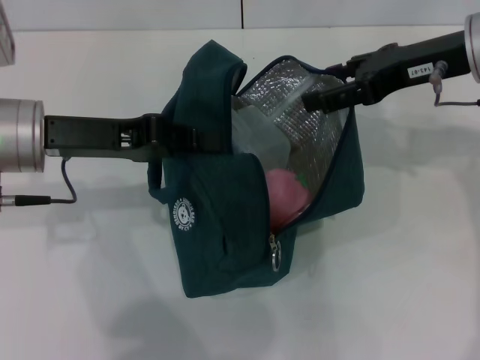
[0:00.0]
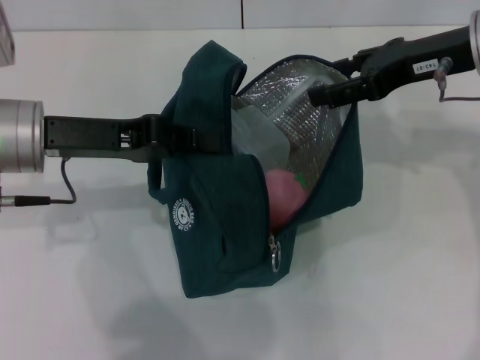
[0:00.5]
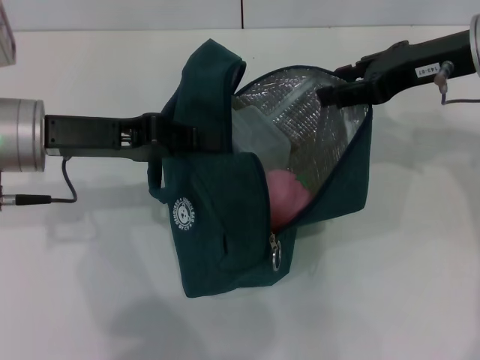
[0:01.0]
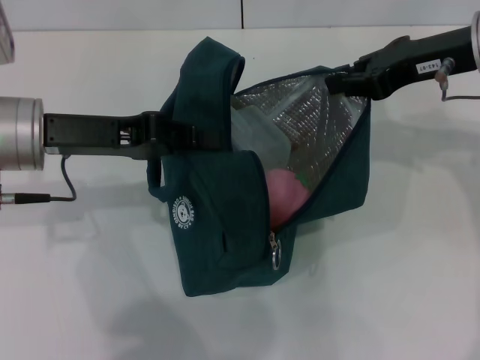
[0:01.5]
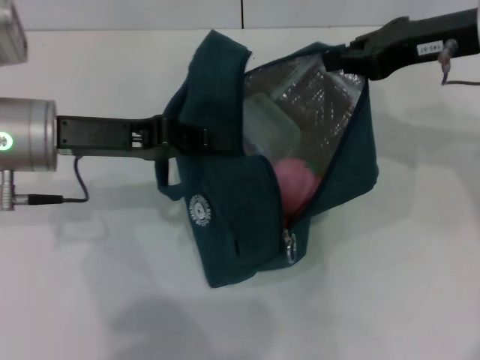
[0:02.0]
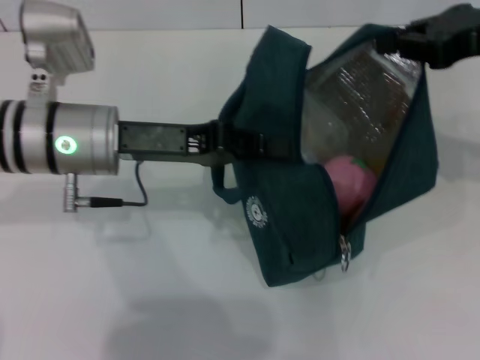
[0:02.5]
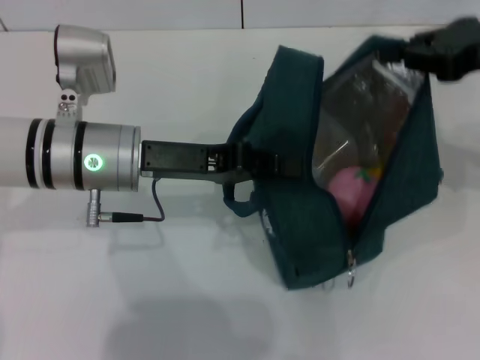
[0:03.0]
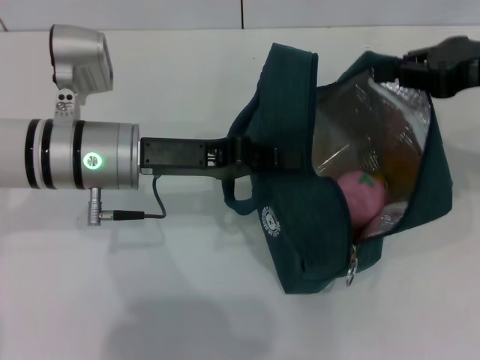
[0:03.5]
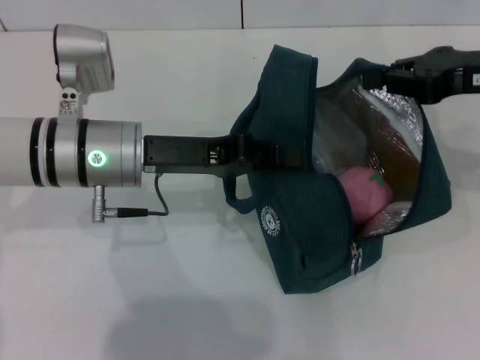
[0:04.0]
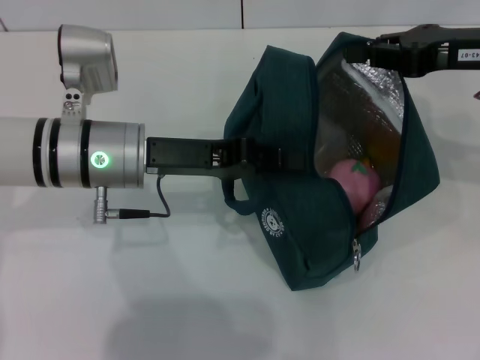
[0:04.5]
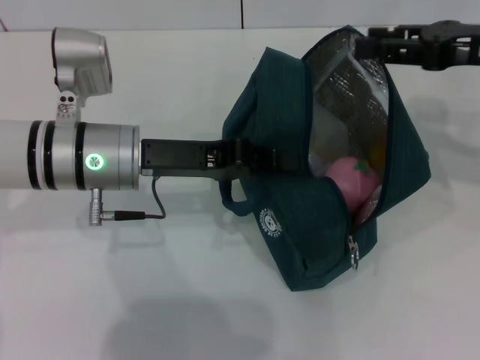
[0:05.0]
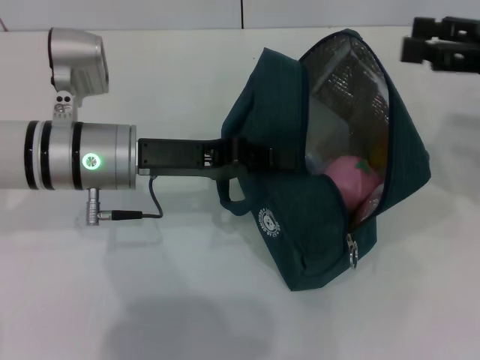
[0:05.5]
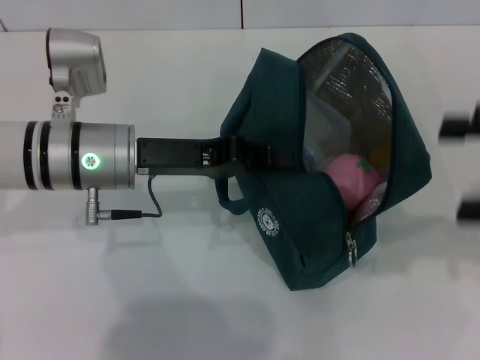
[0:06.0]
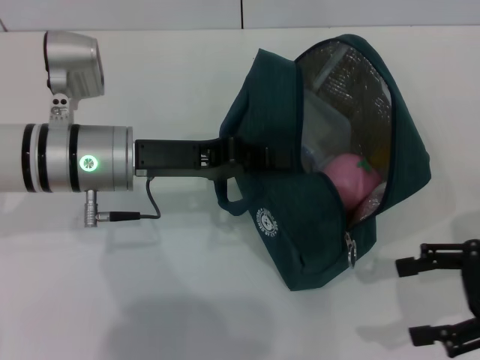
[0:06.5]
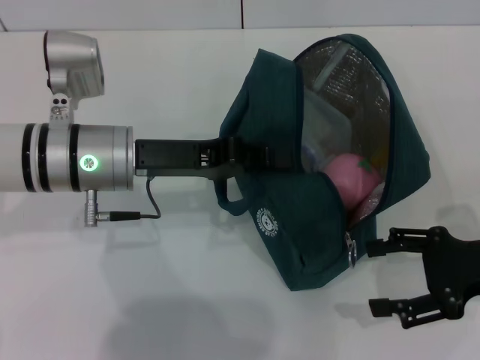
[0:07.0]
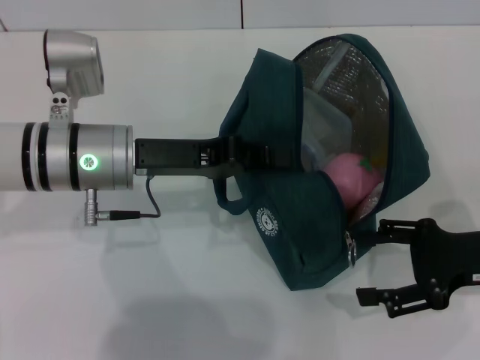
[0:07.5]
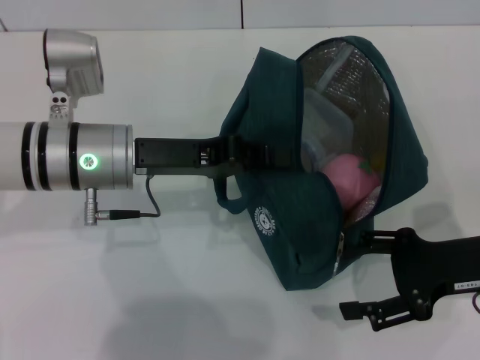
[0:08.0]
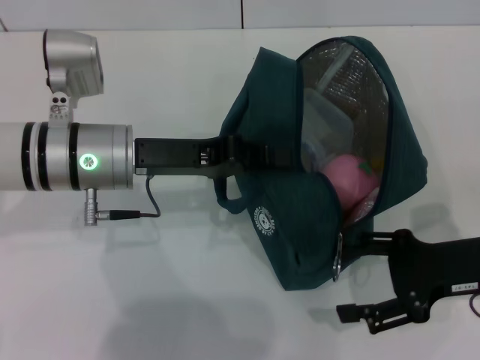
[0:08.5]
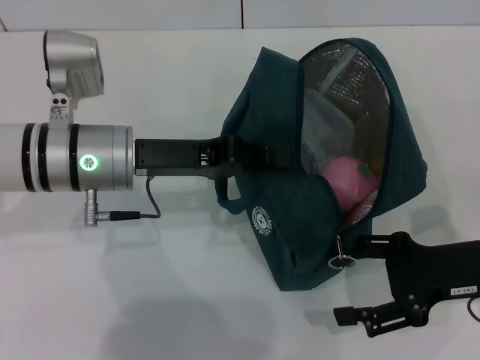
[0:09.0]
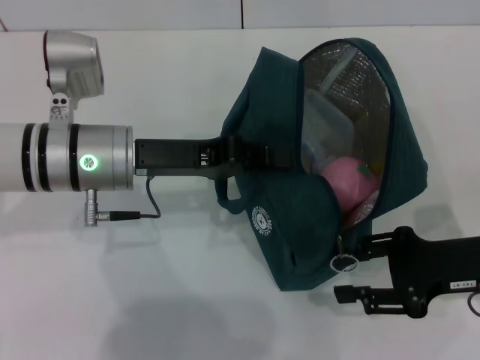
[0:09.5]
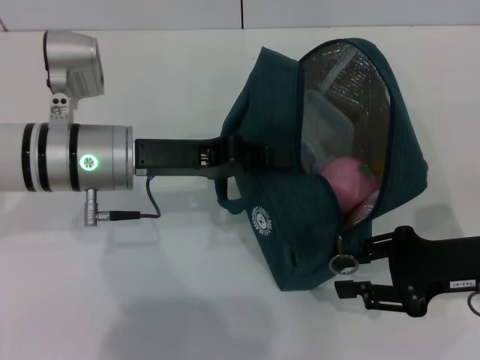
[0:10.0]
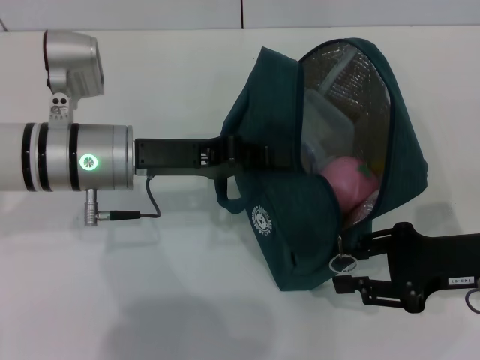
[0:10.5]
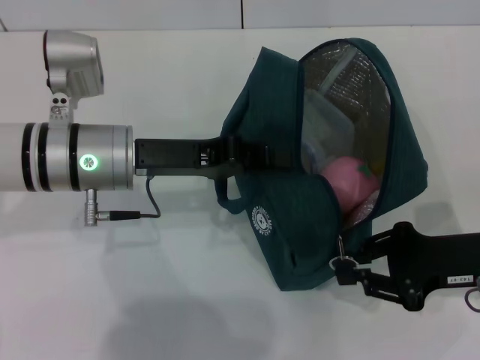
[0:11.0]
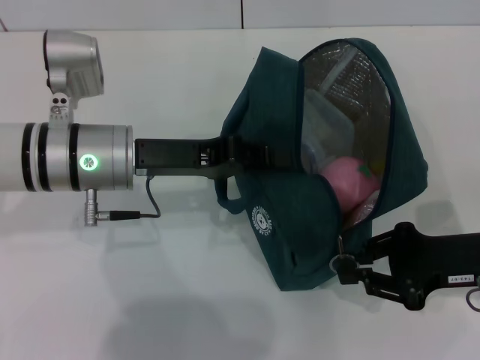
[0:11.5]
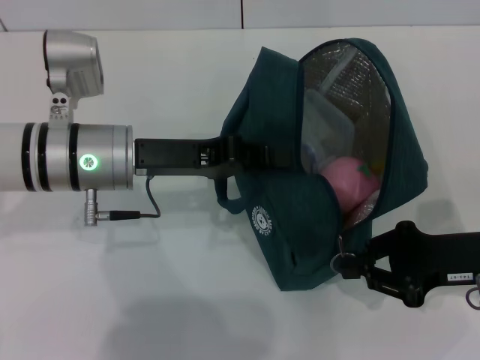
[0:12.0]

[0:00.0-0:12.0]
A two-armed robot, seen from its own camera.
Step, 0:00.0 to 0:05.0: Hold the lunch bag with your right hand.
0:00.0 to 0:02.0: The right gripper closes its fingers.
0:02.0 to 0:04.0: The right gripper moves some 5 cm; the left gripper goes approximately 5 cm to the right.
0:04.0 to 0:06.0: The right gripper goes roughly 10 cm backward and to the right, and opens.
0:06.0 to 0:08.0: The right gripper shifts about 15 cm downward and to the left.
0:08.0 to 0:10.0: The right gripper closes up.
0:10.0 to 0:12.0: Both grippers stay about where they are.

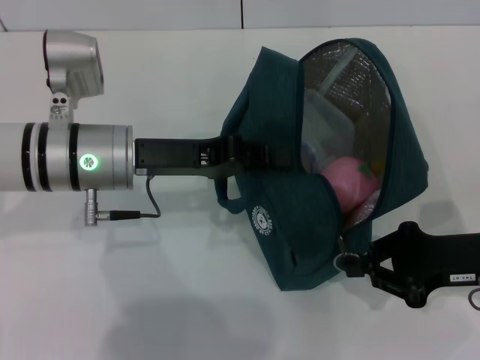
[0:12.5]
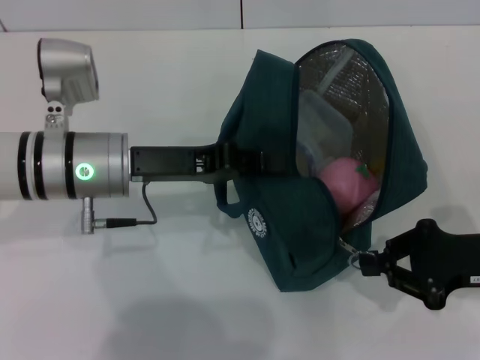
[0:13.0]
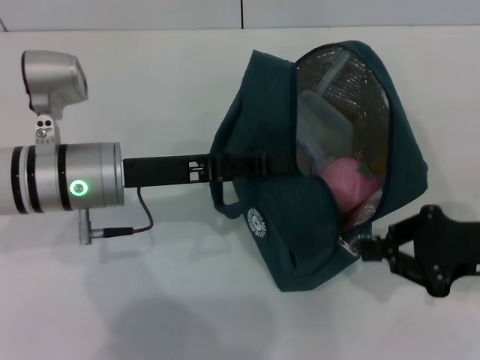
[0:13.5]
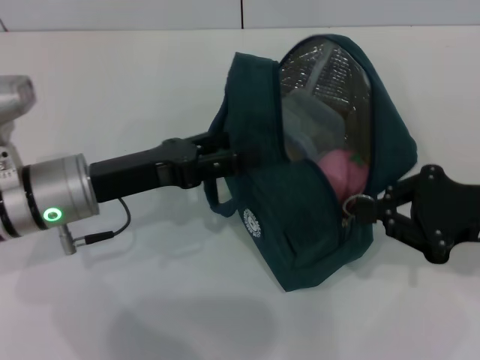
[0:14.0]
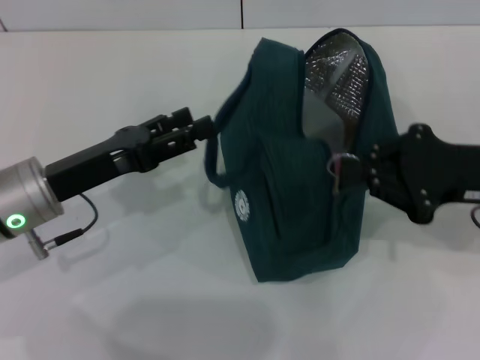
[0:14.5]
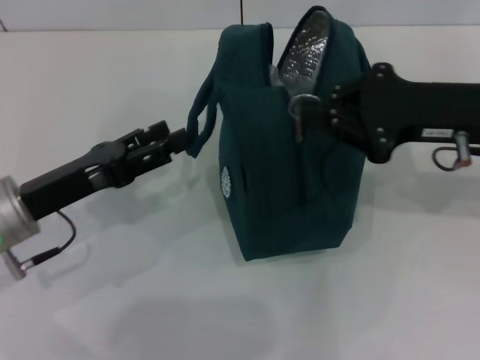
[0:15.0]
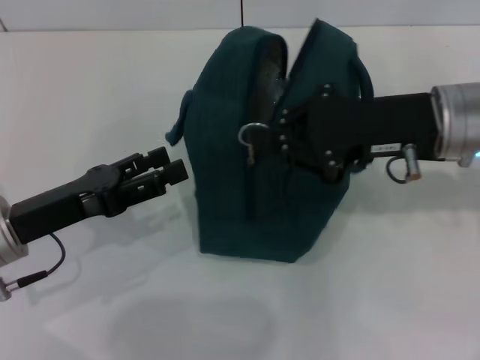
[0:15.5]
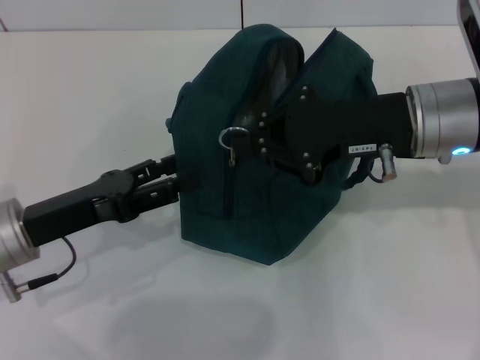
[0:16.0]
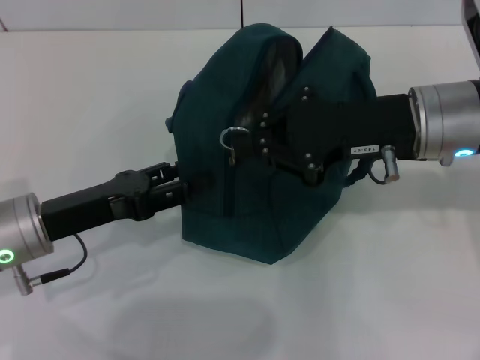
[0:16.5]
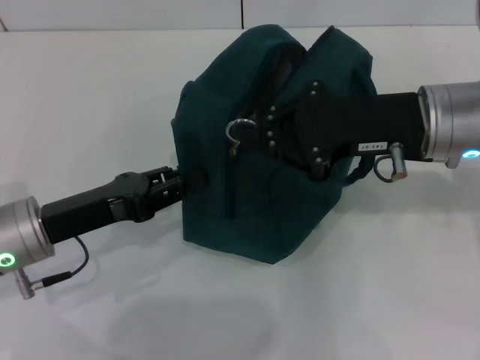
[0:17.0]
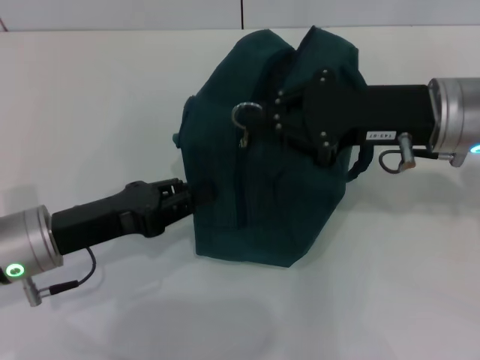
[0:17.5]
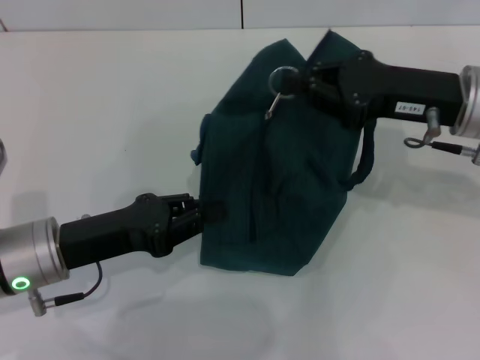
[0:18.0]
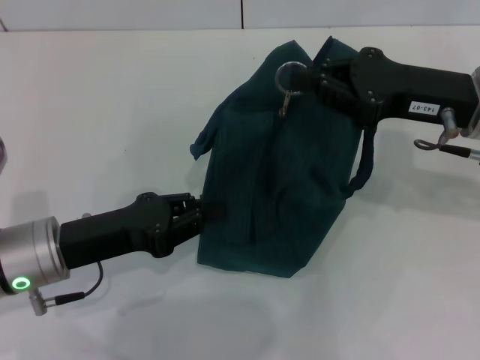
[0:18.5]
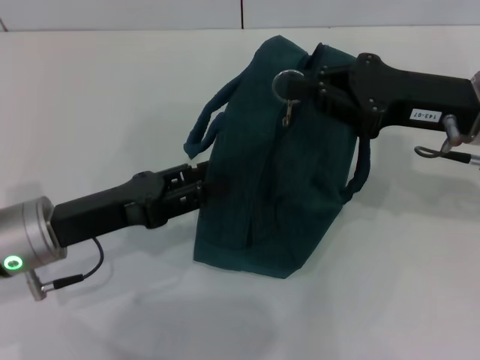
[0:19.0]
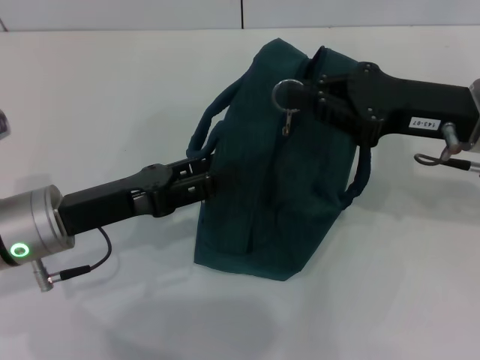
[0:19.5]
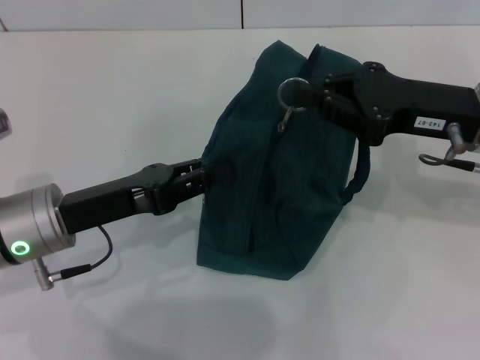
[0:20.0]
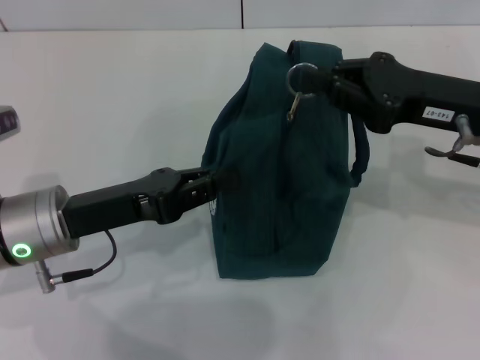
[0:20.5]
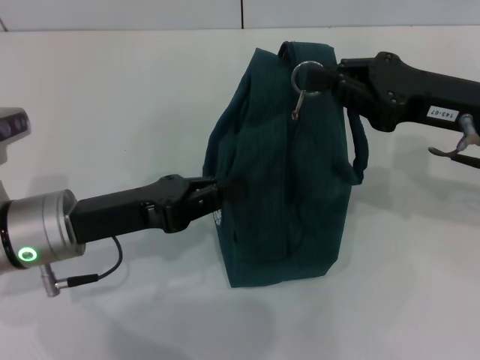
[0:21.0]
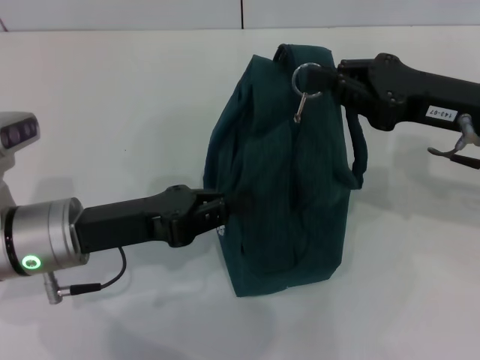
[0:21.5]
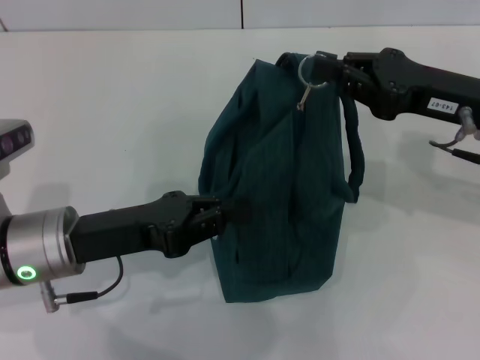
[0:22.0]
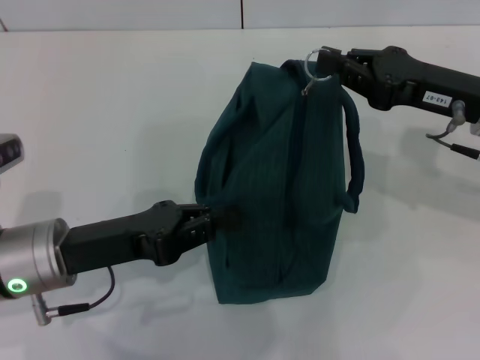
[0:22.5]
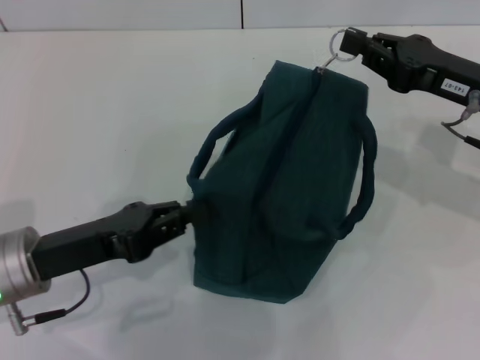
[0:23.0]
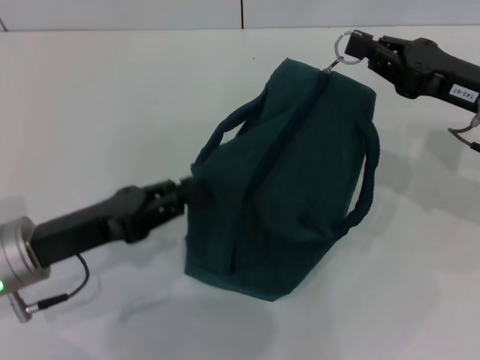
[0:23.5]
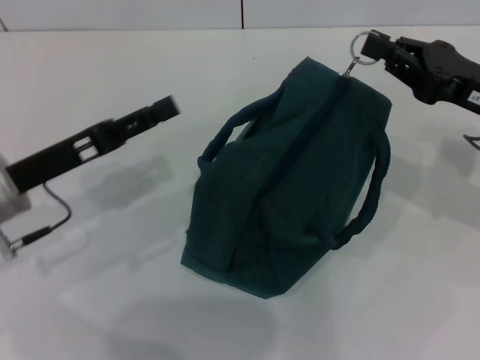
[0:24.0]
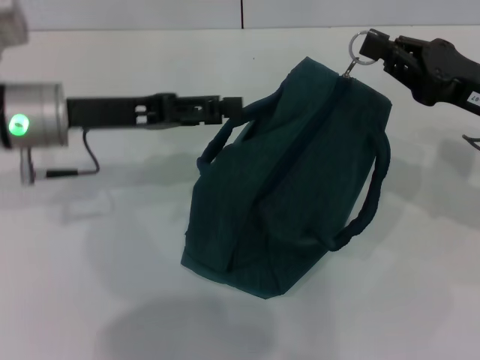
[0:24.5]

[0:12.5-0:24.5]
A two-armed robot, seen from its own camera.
0:12.5 to 0:14.5: The right gripper is displaced upward by some 5 cm, while the left gripper is displaced to the left by roughly 5 cm, and opens up.
0:14.5 to 0:16.5: The right gripper travels to the left by roughly 10 cm.
0:16.5 to 0:18.5: The left gripper closes up.
0:18.5 to 0:20.5: The left gripper opens, then closes once more.
0:22.5 to 0:24.5: The left gripper shifts roughly 15 cm forward and upward, and opens up.

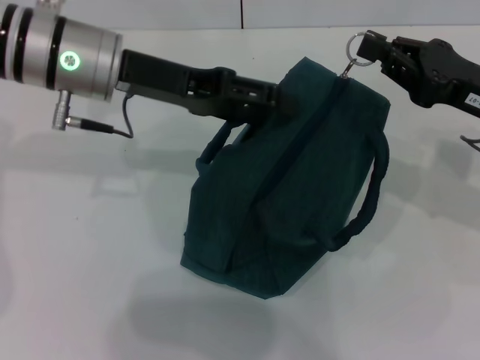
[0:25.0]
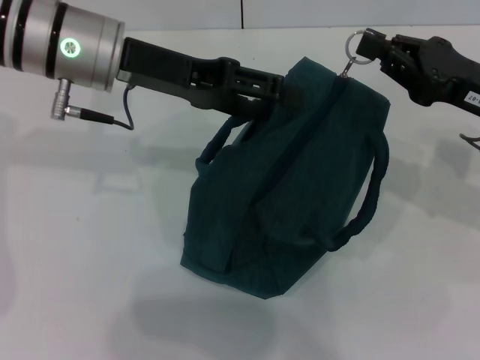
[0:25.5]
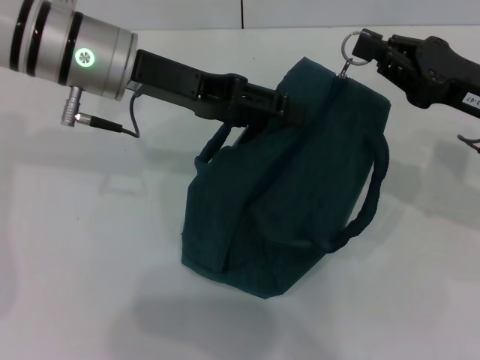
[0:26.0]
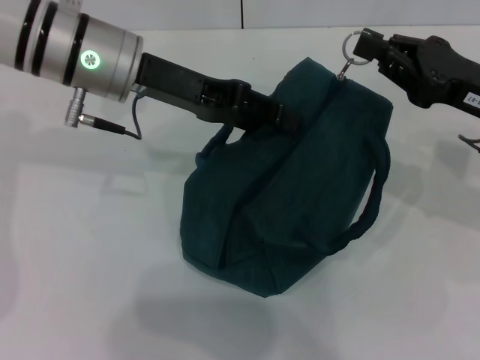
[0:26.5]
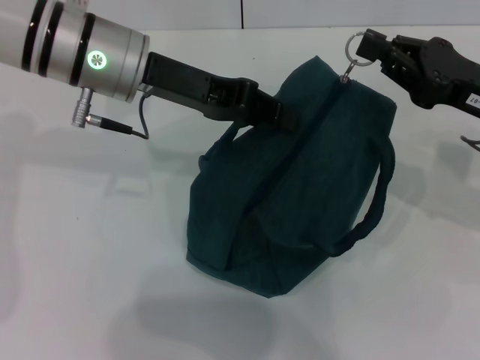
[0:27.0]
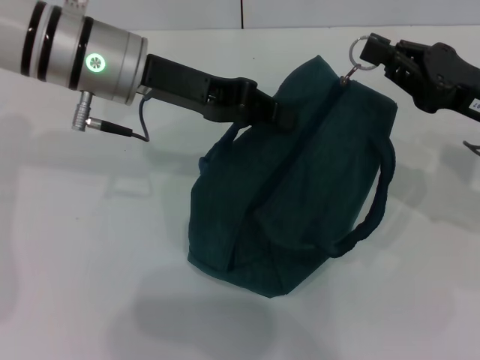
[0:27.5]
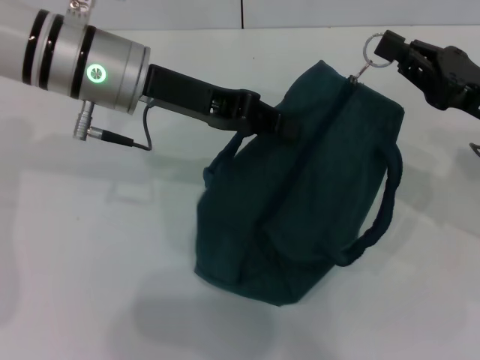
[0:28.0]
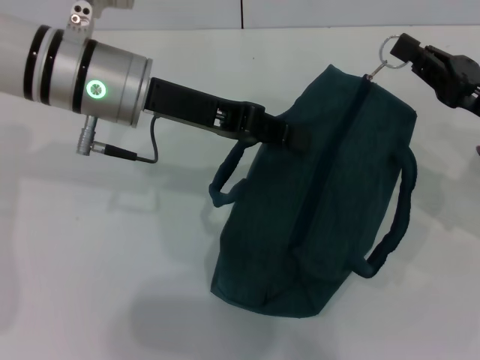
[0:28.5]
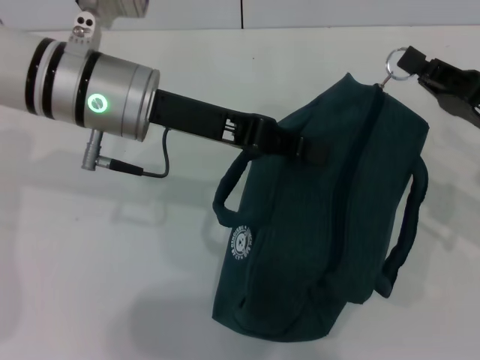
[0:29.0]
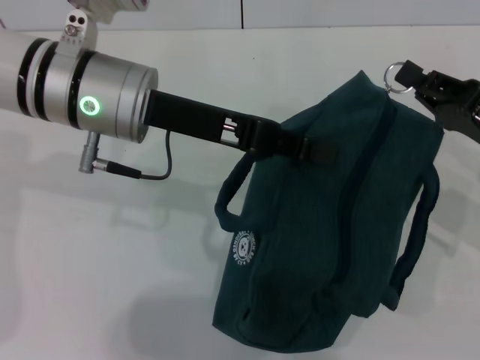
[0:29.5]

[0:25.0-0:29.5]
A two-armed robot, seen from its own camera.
0:25.0 to 0:27.0: The left gripper closes its fingers.
0:27.0 to 0:29.5: The right gripper changes place by roughly 5 cm.
